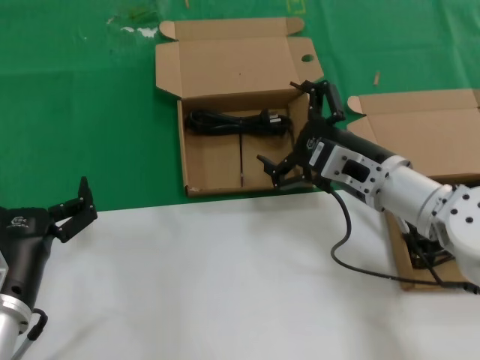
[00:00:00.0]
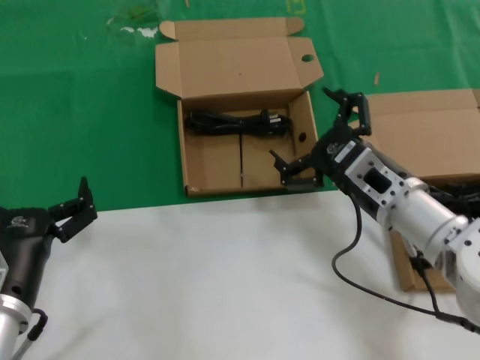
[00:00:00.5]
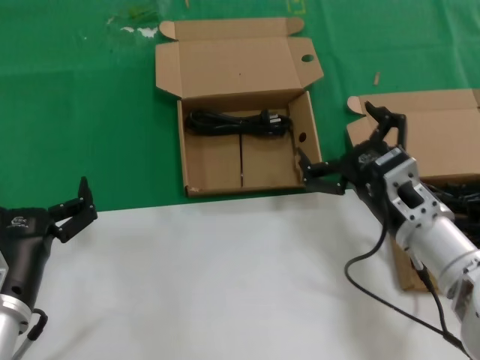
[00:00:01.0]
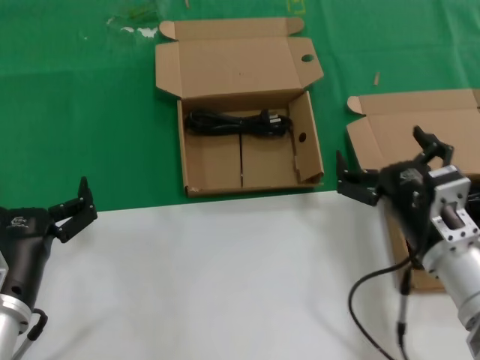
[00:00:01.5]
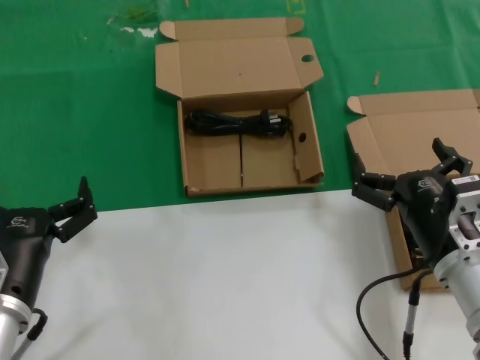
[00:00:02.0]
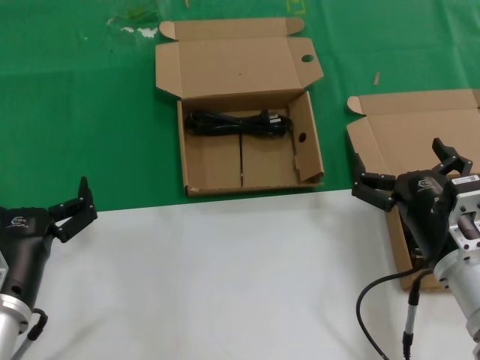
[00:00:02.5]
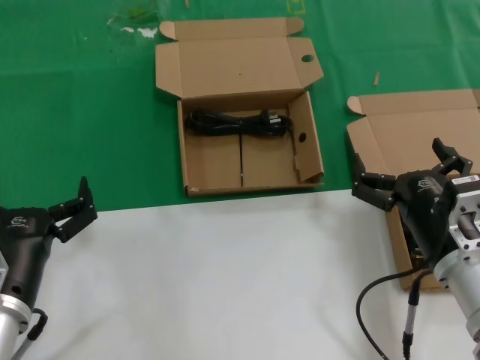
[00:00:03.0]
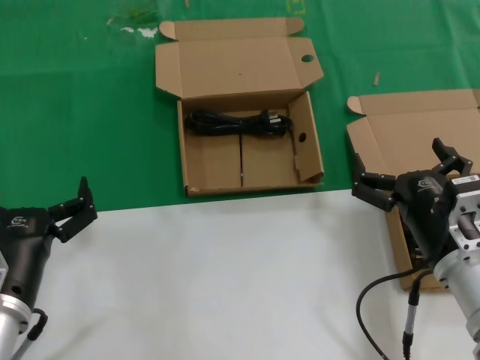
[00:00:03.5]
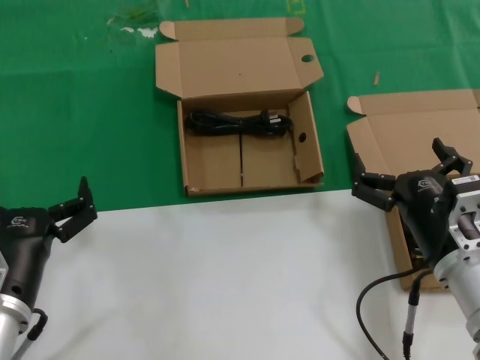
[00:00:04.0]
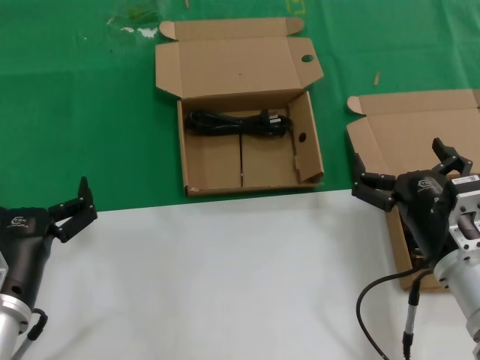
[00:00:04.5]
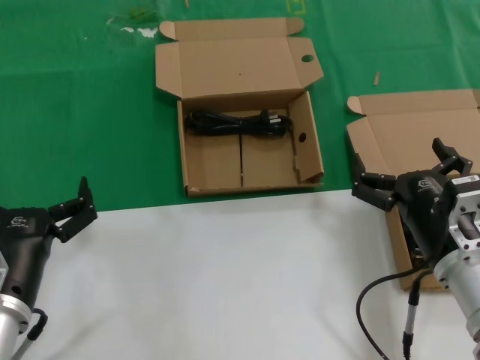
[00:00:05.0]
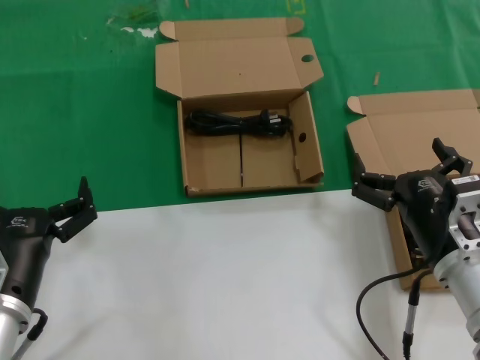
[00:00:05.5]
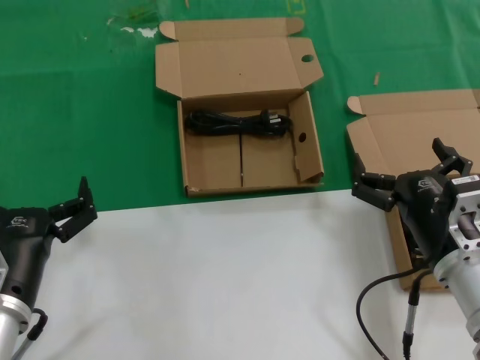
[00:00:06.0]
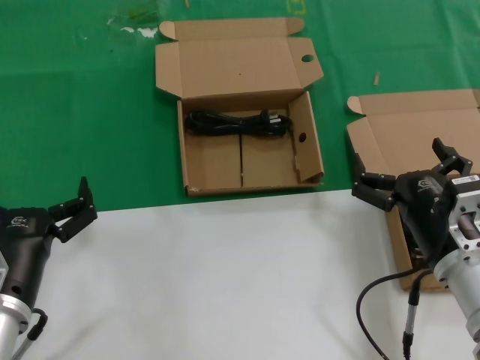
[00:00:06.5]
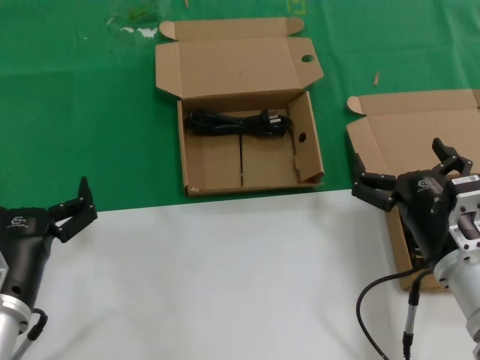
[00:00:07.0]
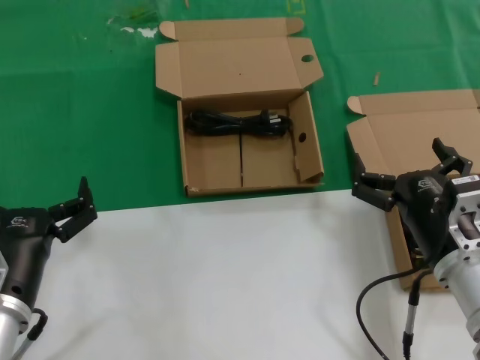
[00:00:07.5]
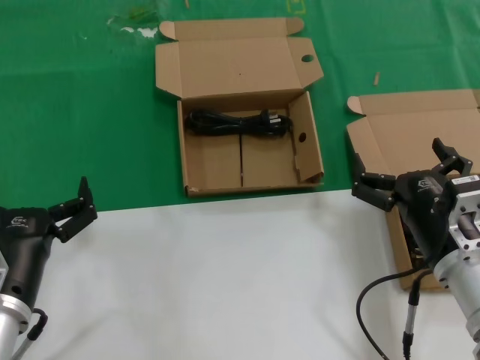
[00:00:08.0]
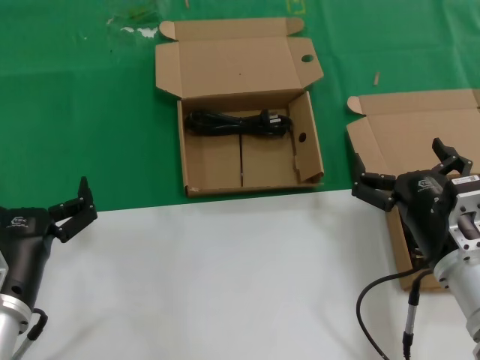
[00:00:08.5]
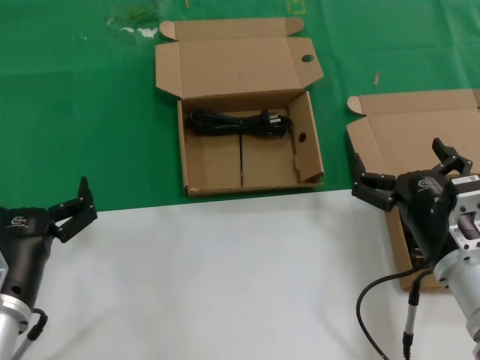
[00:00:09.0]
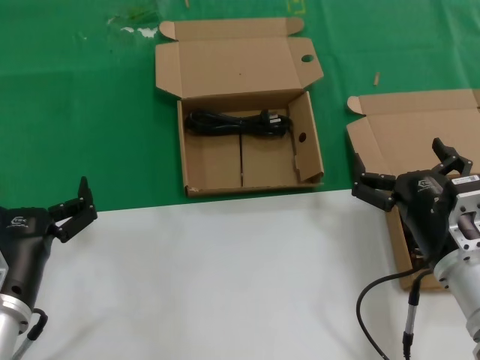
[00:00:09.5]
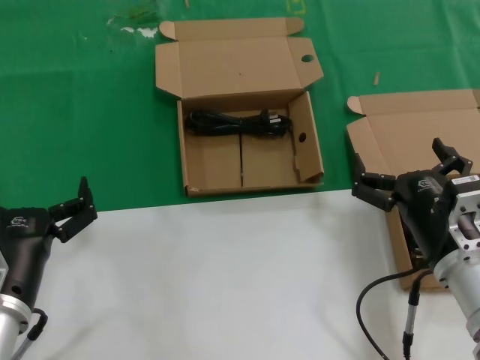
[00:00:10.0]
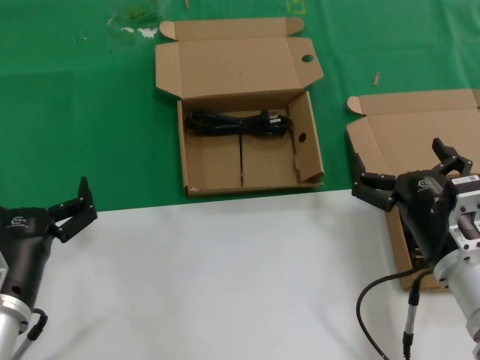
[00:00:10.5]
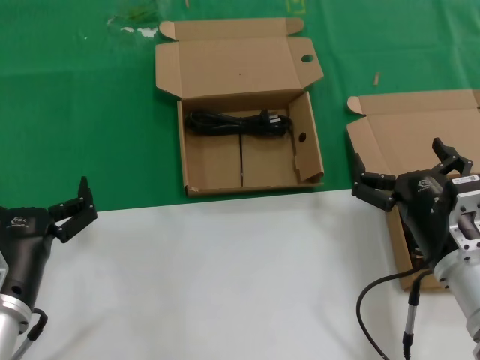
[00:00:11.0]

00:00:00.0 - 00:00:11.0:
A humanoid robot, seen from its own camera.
Task of the whole recording: take the parts from the box containing them and put them into an empty box.
00:00:00.0 - 00:00:02.0: The right hand moves backward and downward, about 15 cm.
00:00:02.0 - 00:00:11.0: Both hands stay about where they are.

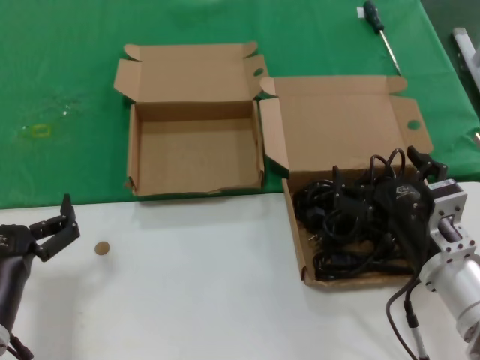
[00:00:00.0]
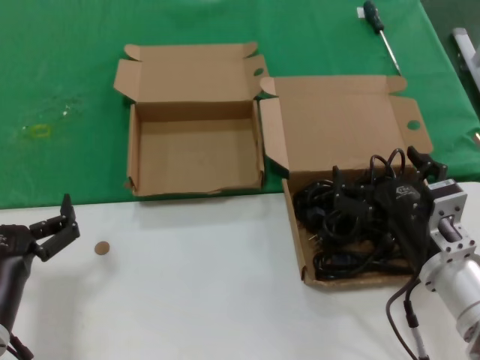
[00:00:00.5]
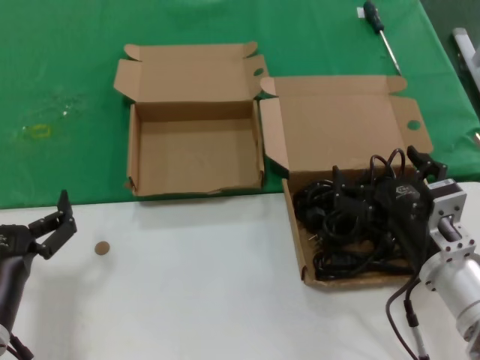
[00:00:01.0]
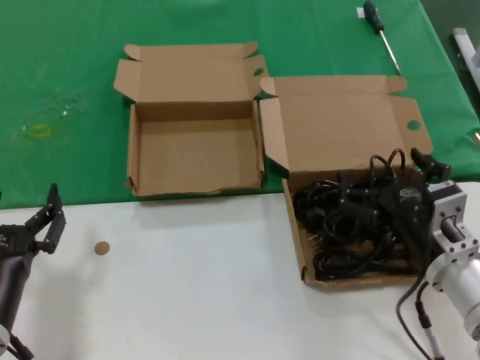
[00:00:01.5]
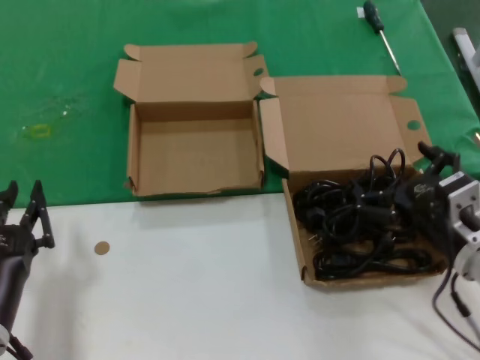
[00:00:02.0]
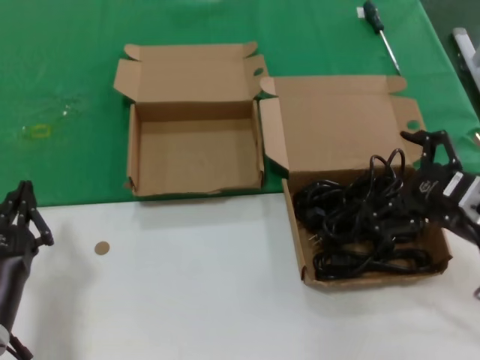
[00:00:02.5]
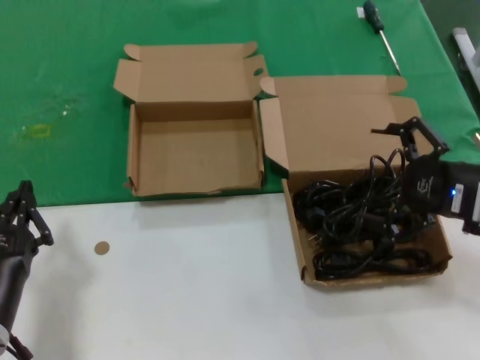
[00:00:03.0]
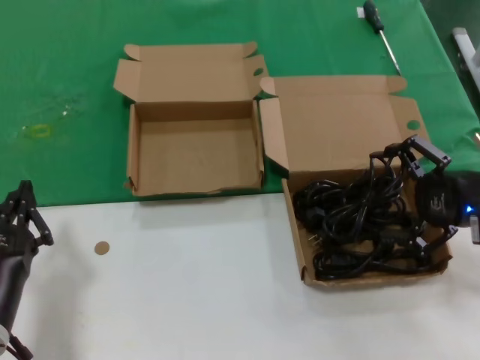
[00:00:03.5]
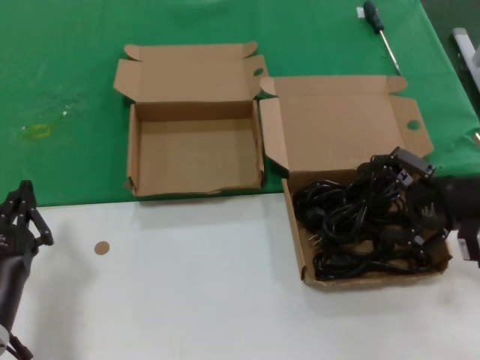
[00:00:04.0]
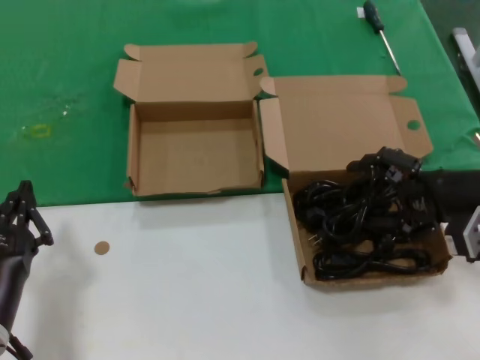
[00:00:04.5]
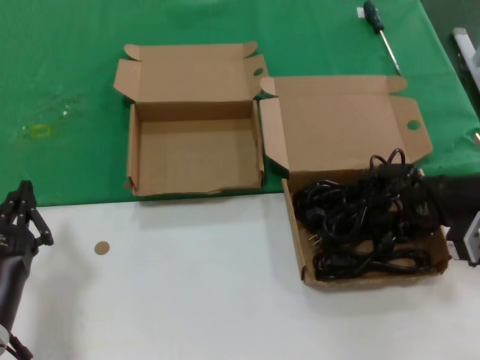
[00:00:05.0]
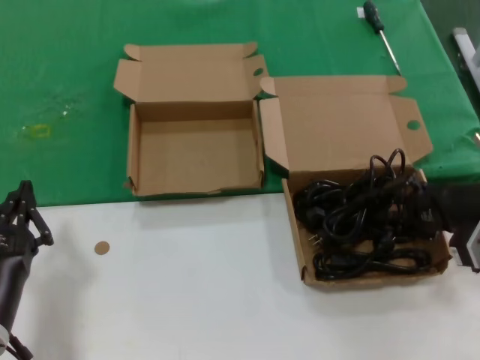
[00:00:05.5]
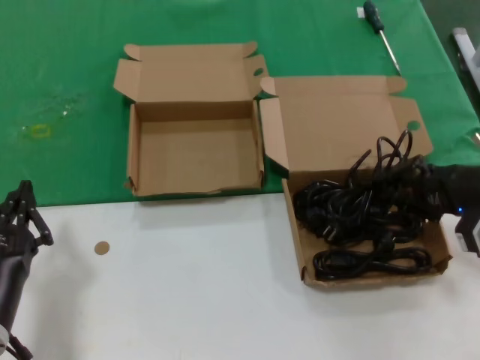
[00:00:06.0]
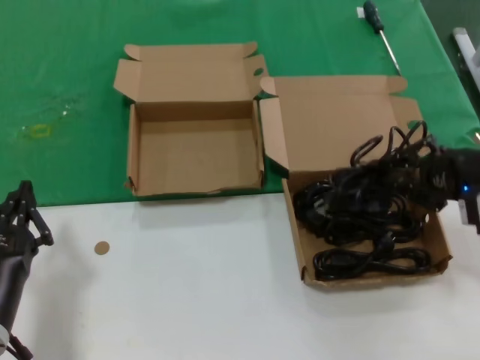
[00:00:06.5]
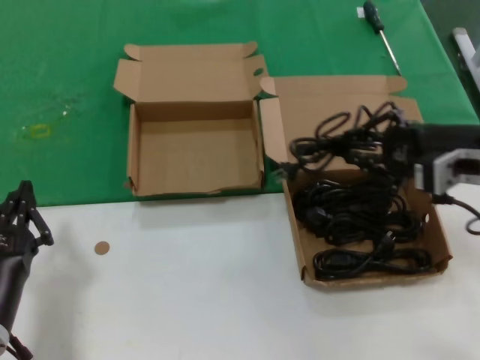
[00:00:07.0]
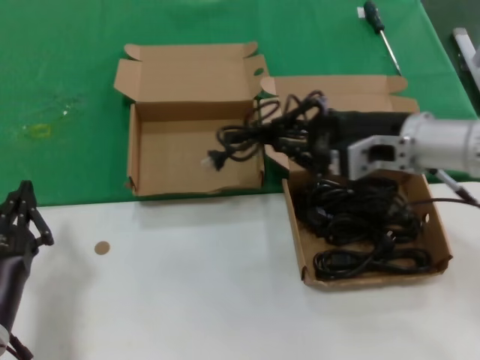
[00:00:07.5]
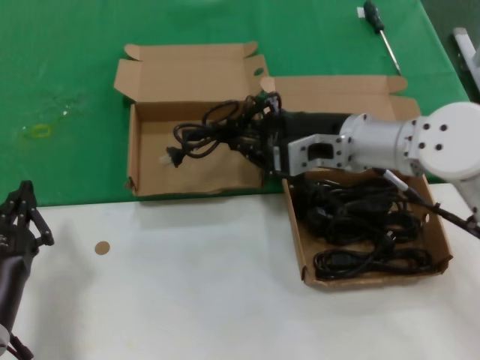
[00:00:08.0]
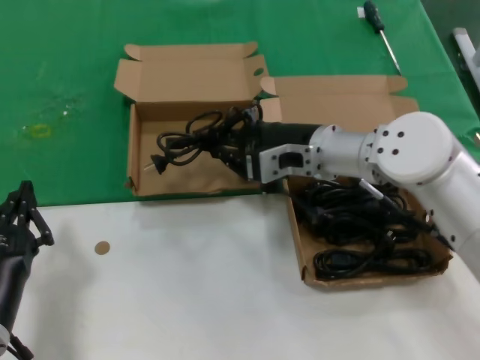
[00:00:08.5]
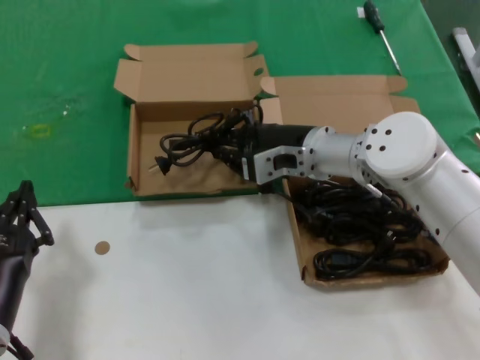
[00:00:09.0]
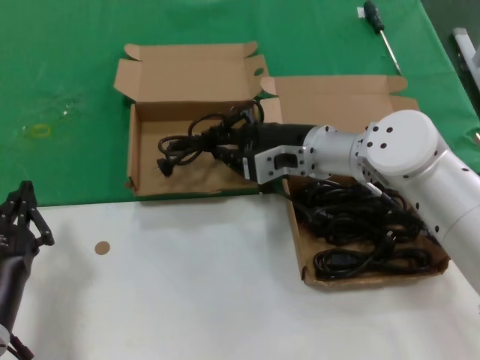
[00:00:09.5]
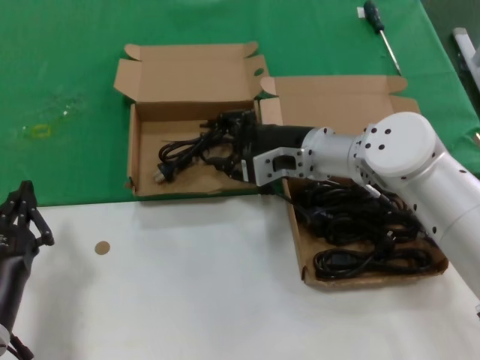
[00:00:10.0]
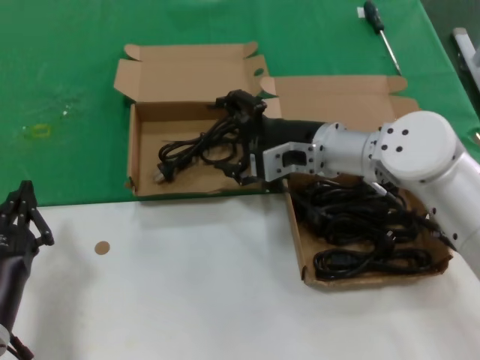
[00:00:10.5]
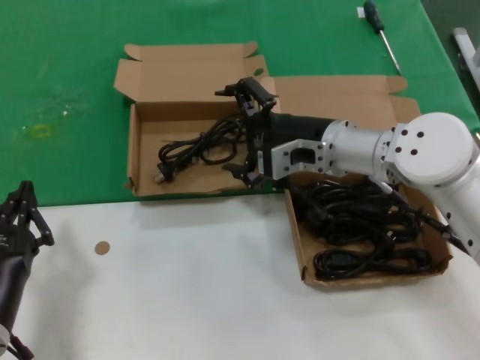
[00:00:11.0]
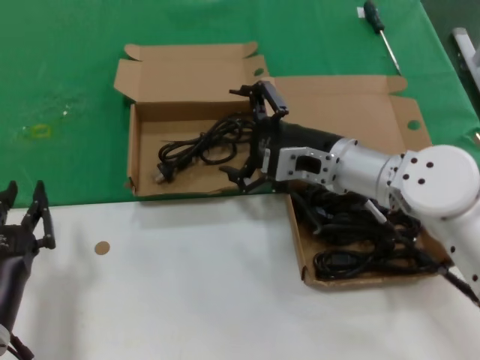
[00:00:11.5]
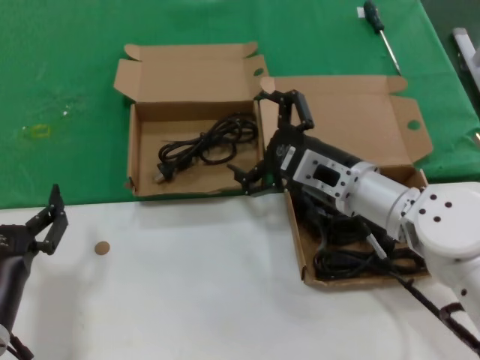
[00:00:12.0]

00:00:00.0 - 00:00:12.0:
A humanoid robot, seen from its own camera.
Task of the whole recording: take the parts from the box containing them and put them into an empty box.
Step, 00:00:00.0 - 00:00:05.5: Grasp the data cable.
Step, 00:00:06.0 - 00:00:10.0: Place the data cable in the another box.
00:00:00.0 - 00:00:02.0: The hands move only a little.
00:00:02.0 - 00:00:04.0: The right hand moves to the right, upward and forward, approximately 15 cm.
00:00:04.0 - 00:00:06.0: There are only small adjustments of the hands.
00:00:06.0 - 00:00:08.0: The right hand heads to the left, covering about 20 cm.
00:00:08.0 - 00:00:10.0: The right hand moves approximately 5 cm.
00:00:10.0 - 00:00:12.0: The right hand travels backward by approximately 10 cm.

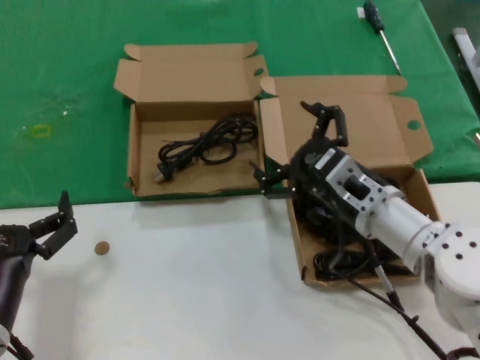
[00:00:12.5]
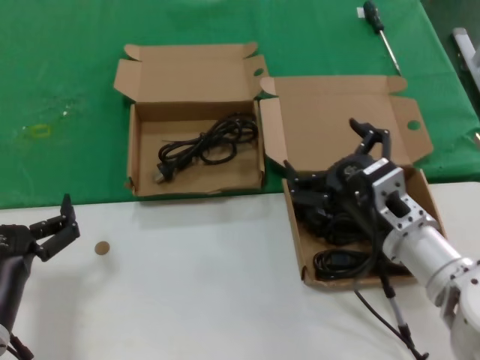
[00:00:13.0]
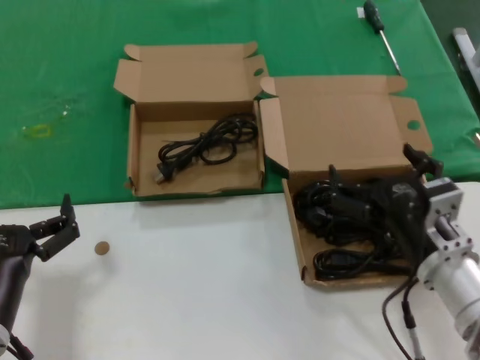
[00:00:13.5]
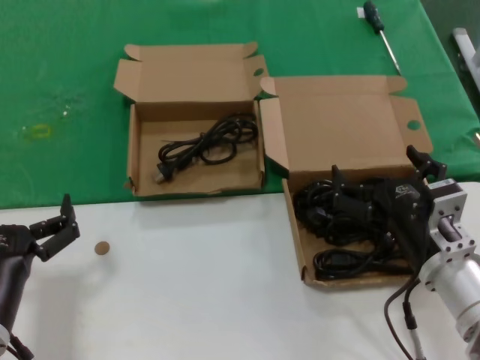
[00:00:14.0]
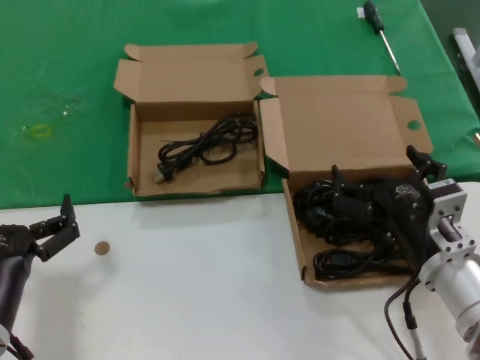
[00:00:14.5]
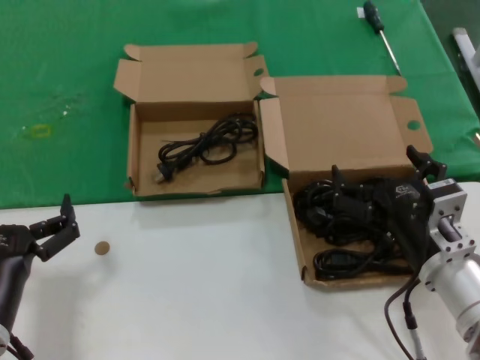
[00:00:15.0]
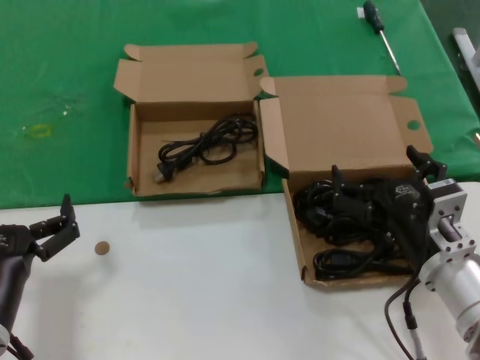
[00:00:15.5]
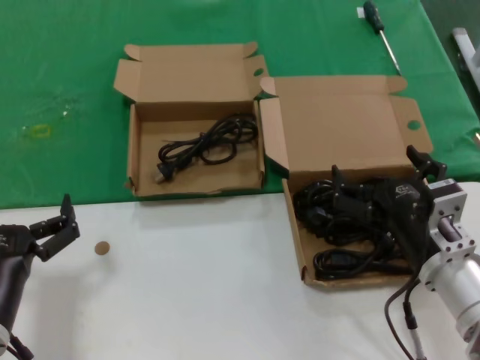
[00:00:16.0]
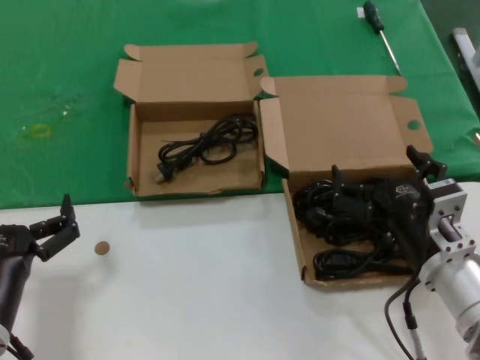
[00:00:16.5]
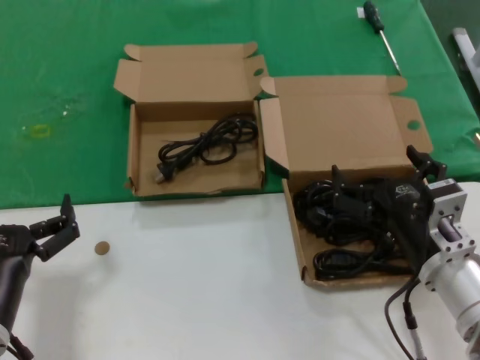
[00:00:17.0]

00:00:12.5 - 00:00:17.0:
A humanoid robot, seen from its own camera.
Task of the whole recording: take the parts from the box containing them and put them into an empty box.
00:00:12.5 - 00:00:14.5: The right hand moves backward, approximately 10 cm.
00:00:14.5 - 00:00:17.0: Both hands stay put.
